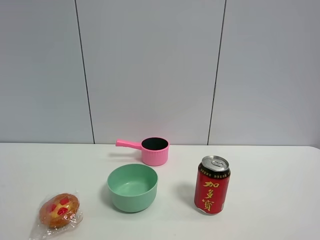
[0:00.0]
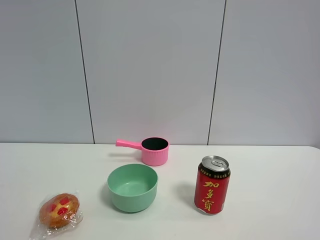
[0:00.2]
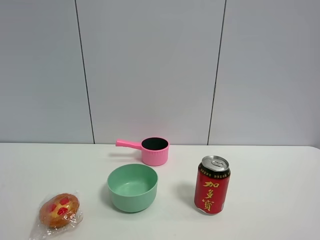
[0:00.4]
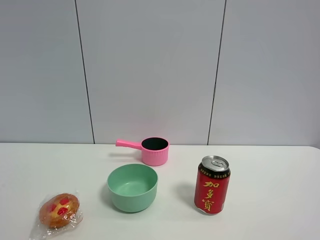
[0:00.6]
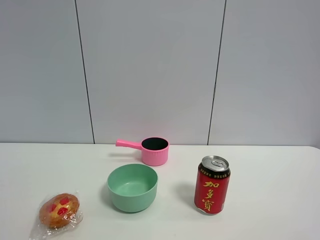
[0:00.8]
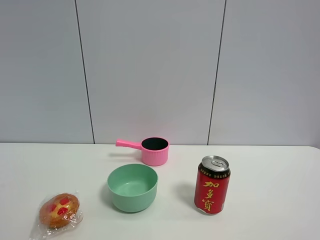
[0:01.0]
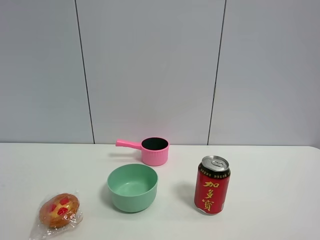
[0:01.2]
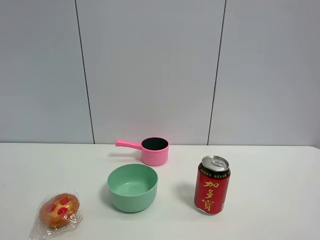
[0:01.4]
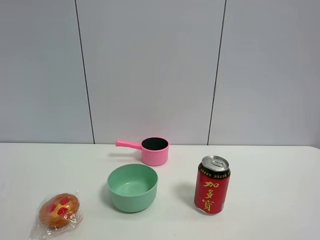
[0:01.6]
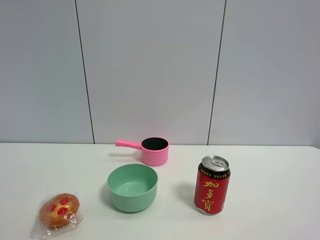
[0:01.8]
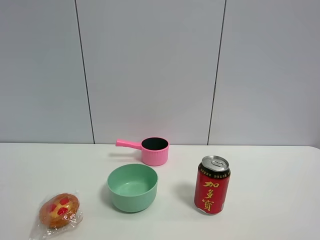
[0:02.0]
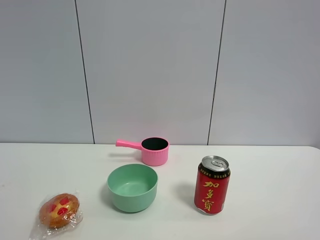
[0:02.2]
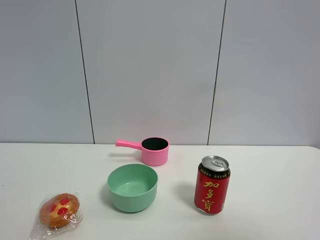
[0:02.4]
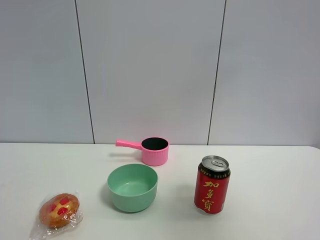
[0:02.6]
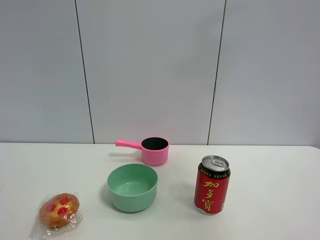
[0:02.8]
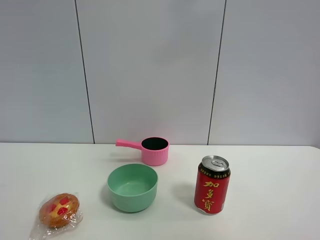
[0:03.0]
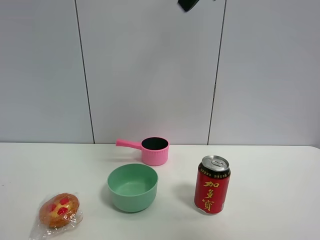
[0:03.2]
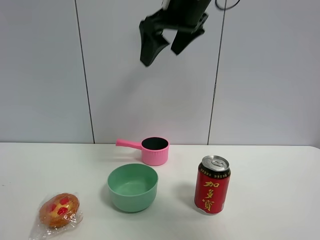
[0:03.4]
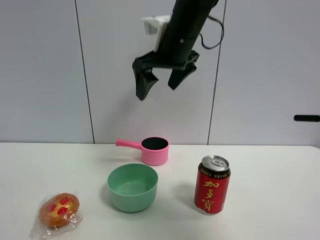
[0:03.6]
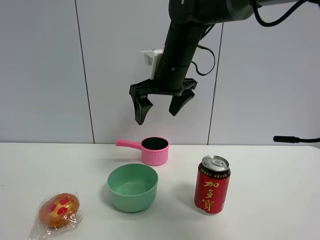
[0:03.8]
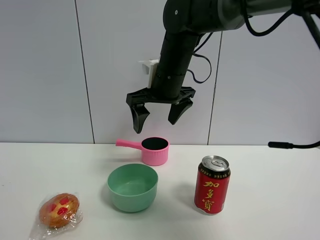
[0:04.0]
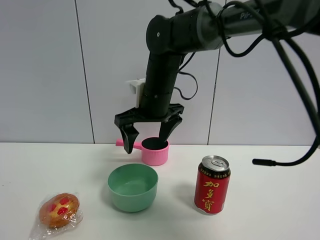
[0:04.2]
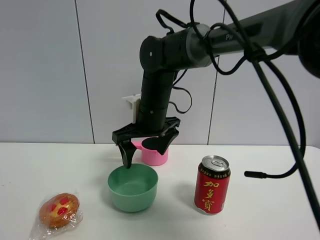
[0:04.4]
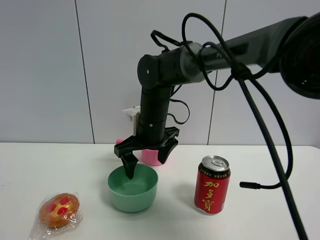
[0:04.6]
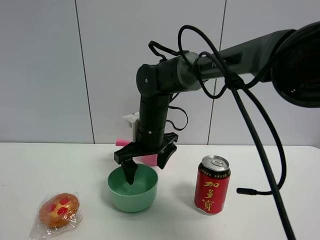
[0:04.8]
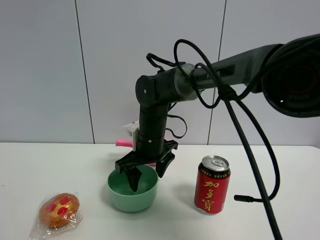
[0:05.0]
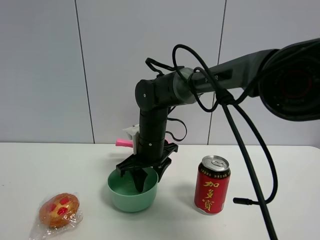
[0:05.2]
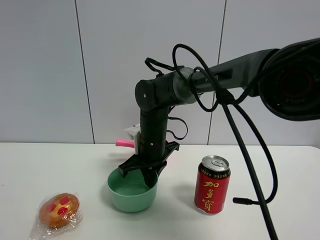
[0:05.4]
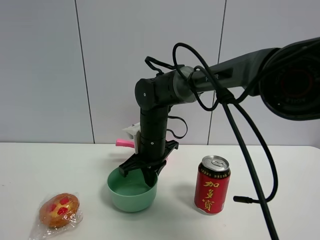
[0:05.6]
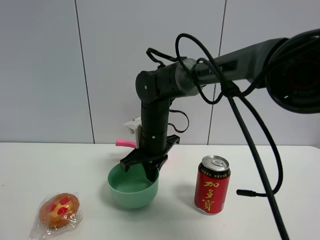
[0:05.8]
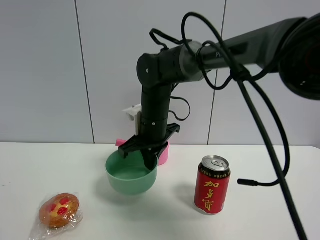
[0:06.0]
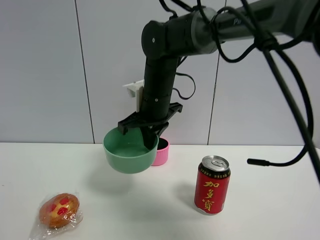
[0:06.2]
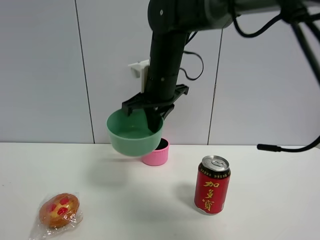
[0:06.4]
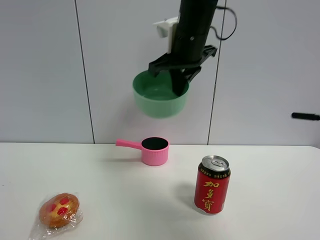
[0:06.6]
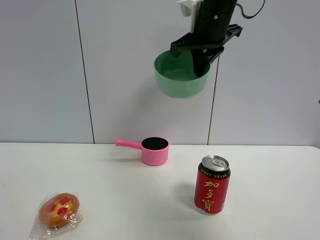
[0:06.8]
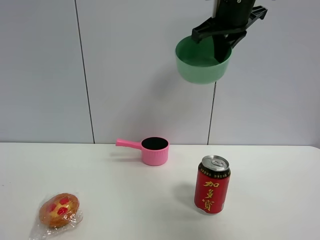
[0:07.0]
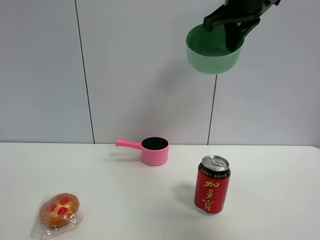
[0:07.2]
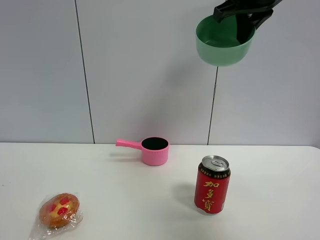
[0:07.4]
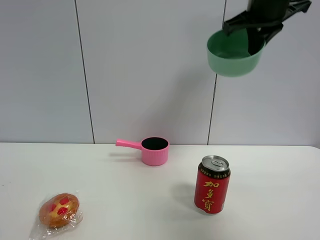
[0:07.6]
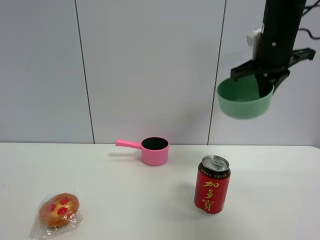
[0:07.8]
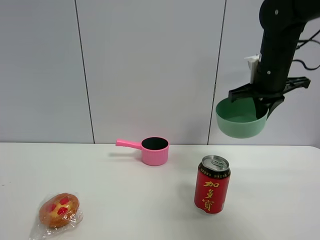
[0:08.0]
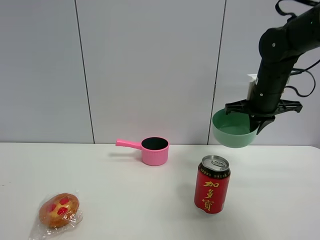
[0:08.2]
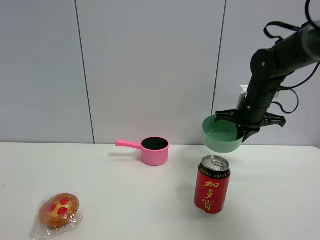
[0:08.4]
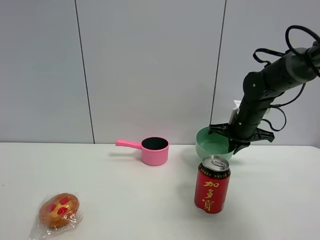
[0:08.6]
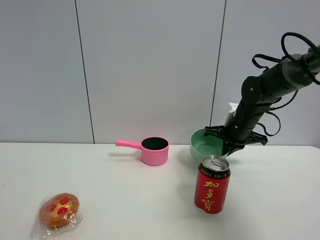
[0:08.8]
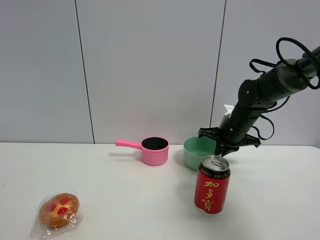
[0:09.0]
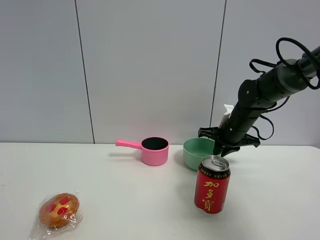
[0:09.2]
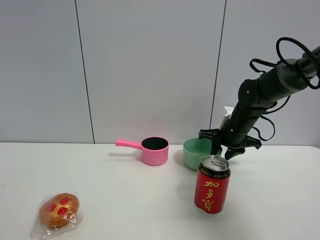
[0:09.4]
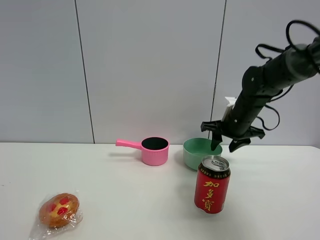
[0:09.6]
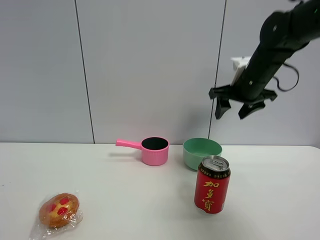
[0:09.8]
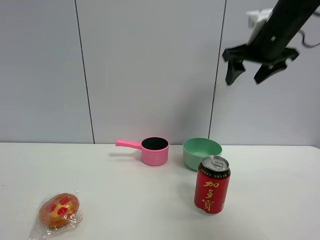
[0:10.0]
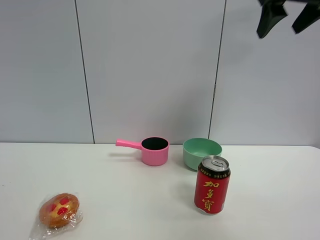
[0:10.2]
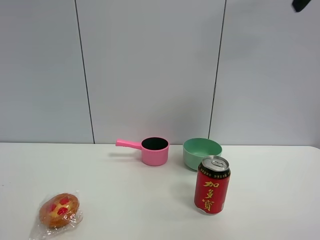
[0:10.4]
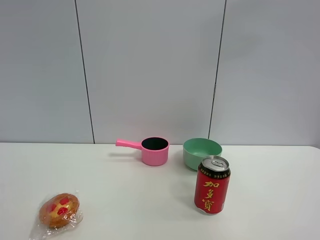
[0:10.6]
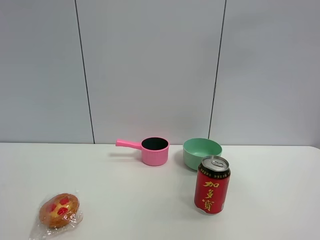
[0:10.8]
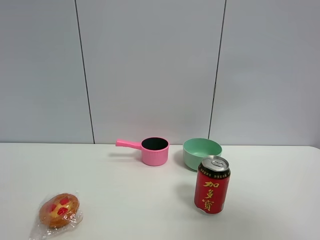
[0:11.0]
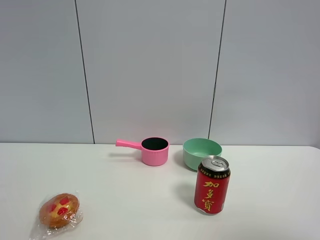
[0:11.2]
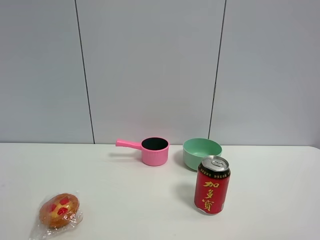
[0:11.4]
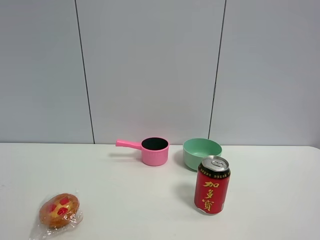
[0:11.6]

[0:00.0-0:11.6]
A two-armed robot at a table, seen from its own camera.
Task of the whole recording: the gripper move the object.
Step, 0:00.0 to 0:05.4: Grasp the green bowl with the right gripper.
Step, 0:05.6 to 0:09.6: Place the green bowl on the table with the right gripper.
0:00.0 to 0:01.4: Both grippers stay put.
0:01.4 to 0:02.8: The right gripper is displaced upward and forward by about 30 cm.
0:02.8 to 0:04.4: The right gripper goes about 40 cm downward, to the left and forward.
0:04.4 to 0:05.8: The right gripper closes its fingers.
0:05.8 to 0:07.2: The right gripper moves upward and to the right, some 30 cm.
0:07.2 to 0:08.8: The right gripper moves downward, approximately 30 cm.
0:08.8 to 0:10.2: The right gripper travels upward and backward by about 35 cm, and opens up.
0:10.2 to 0:11.6: The right gripper heads backward and downward, covering approximately 35 cm.

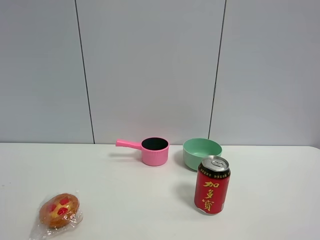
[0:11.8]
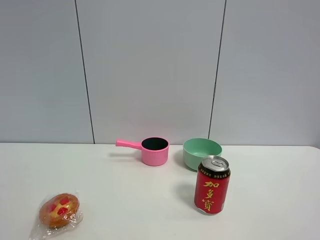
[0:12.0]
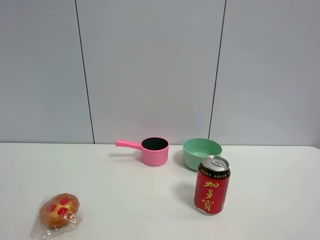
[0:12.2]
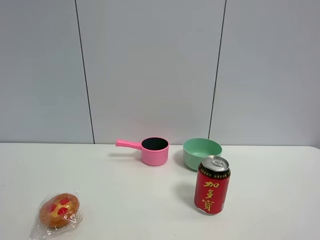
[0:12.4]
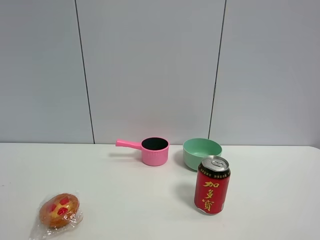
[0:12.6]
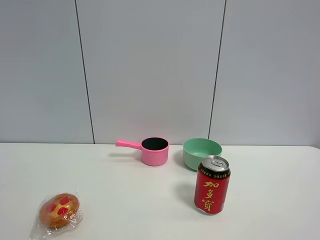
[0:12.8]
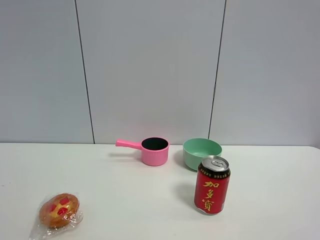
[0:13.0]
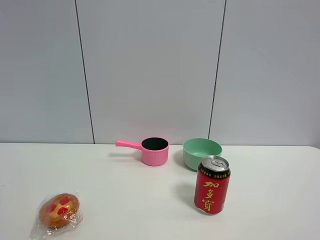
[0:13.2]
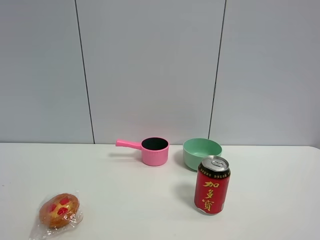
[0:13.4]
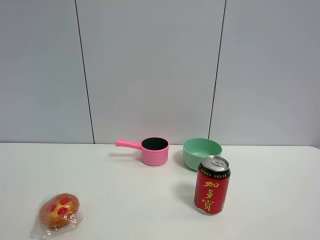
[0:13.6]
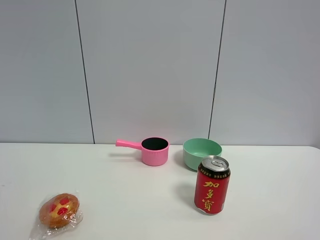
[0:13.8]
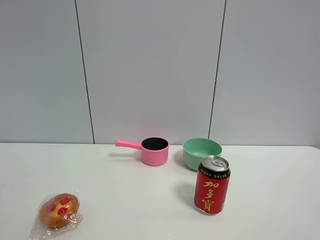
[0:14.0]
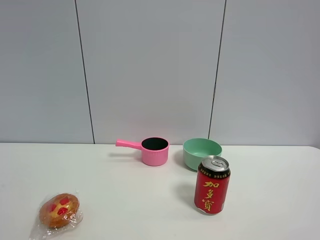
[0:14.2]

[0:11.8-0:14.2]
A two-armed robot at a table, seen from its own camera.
Task of the whole recording: the gripper move the object.
0:13.0 to 0:14.2: Both grippers stay about where they are.
